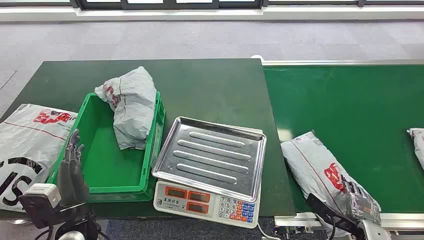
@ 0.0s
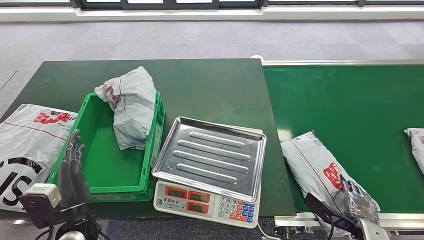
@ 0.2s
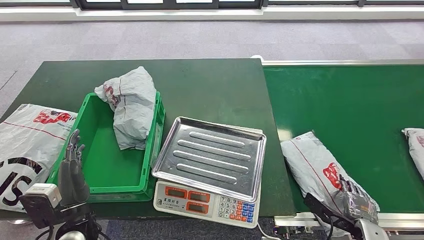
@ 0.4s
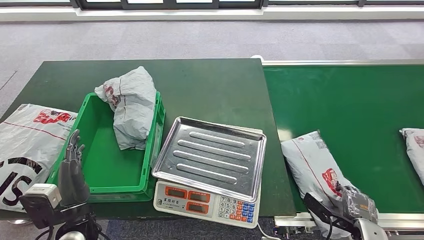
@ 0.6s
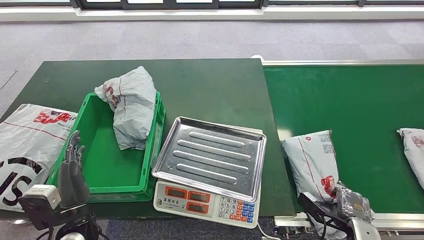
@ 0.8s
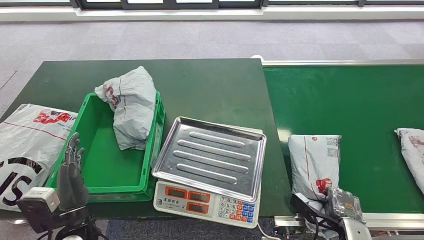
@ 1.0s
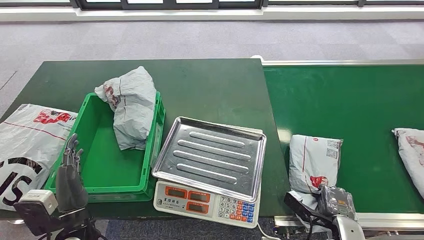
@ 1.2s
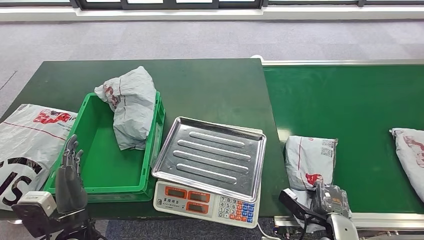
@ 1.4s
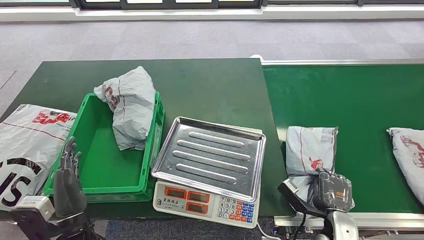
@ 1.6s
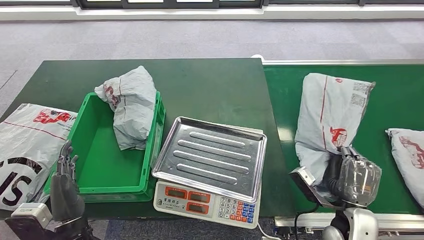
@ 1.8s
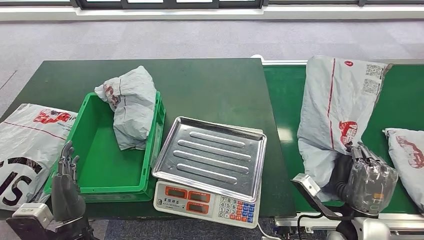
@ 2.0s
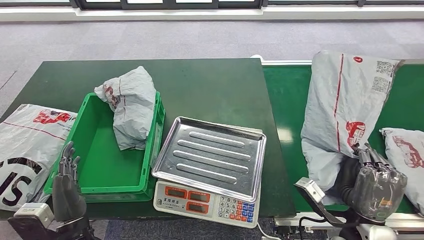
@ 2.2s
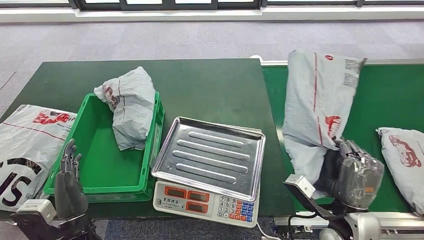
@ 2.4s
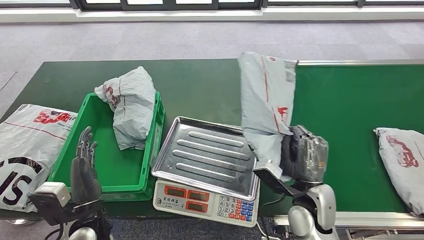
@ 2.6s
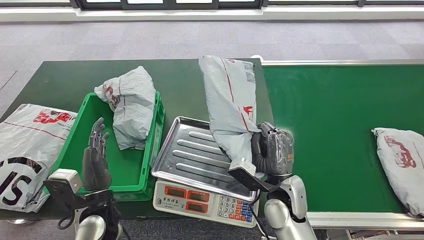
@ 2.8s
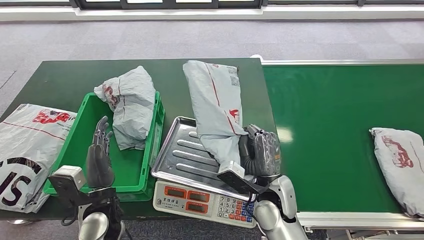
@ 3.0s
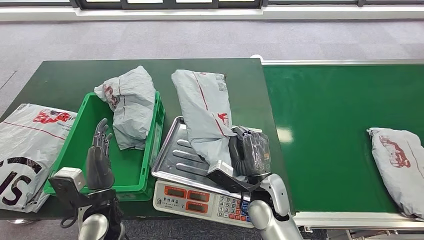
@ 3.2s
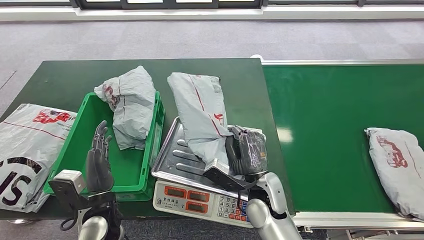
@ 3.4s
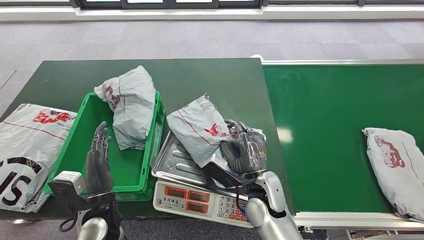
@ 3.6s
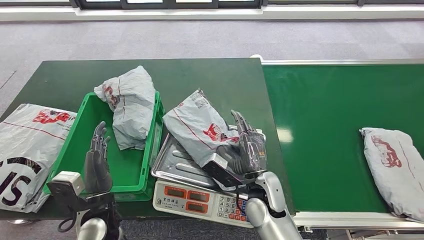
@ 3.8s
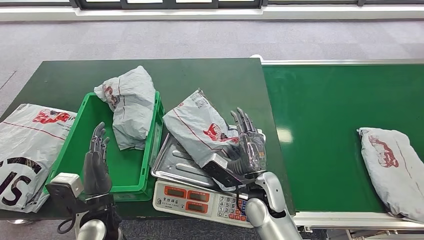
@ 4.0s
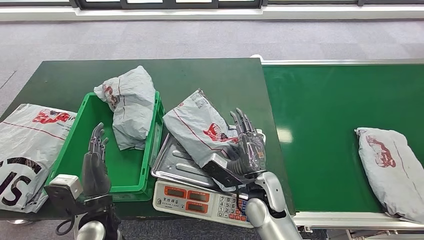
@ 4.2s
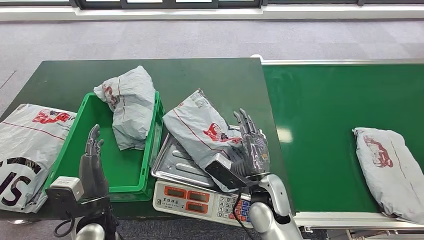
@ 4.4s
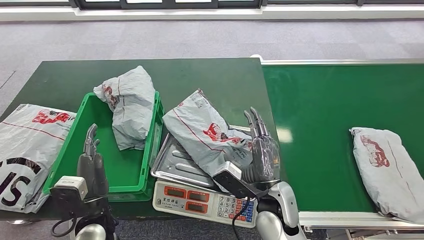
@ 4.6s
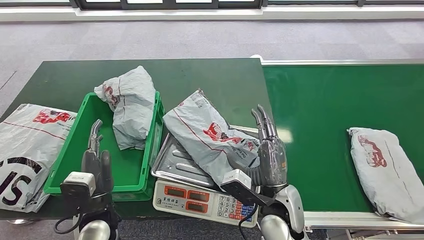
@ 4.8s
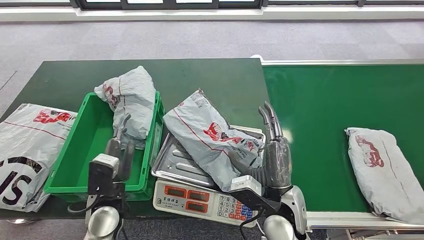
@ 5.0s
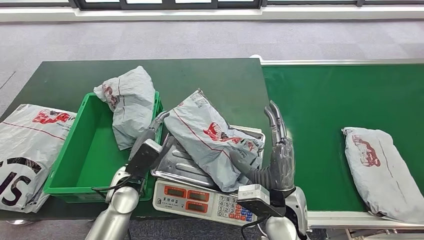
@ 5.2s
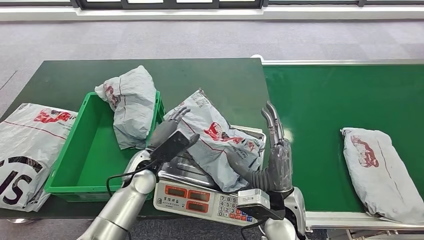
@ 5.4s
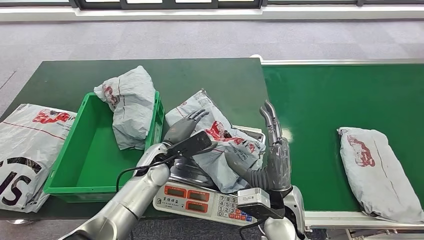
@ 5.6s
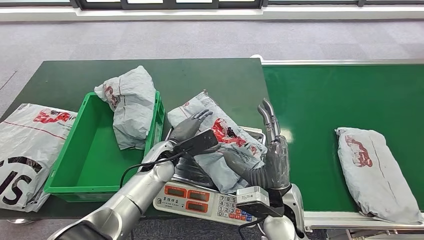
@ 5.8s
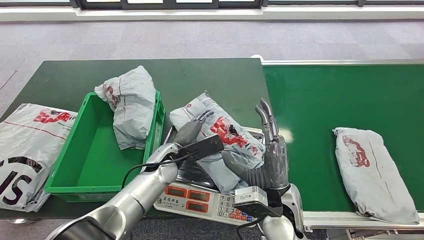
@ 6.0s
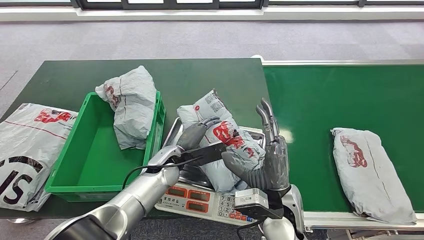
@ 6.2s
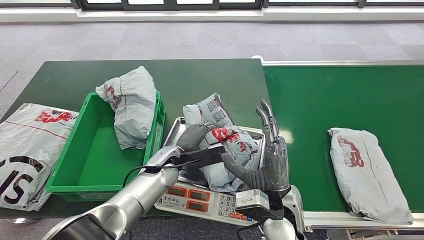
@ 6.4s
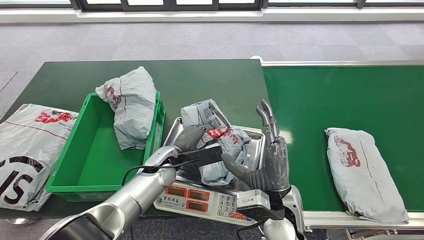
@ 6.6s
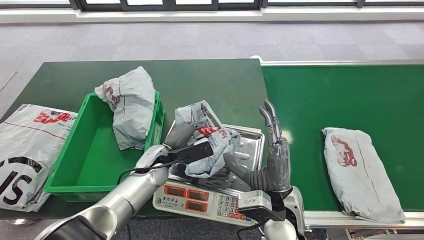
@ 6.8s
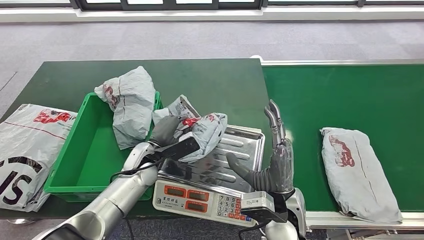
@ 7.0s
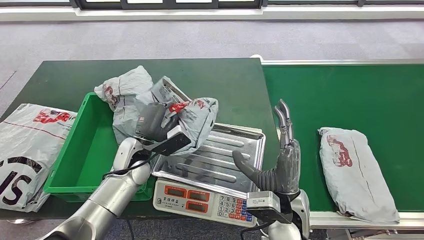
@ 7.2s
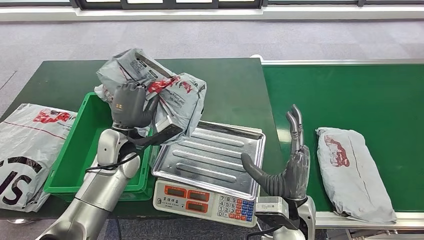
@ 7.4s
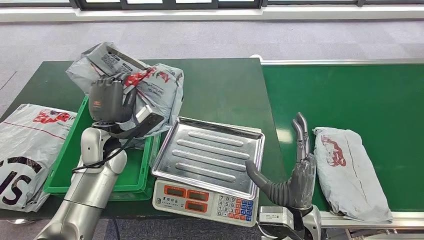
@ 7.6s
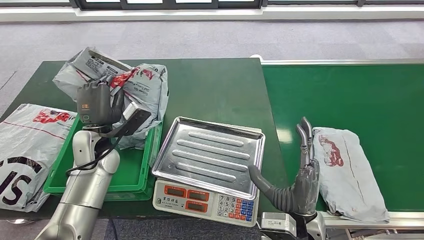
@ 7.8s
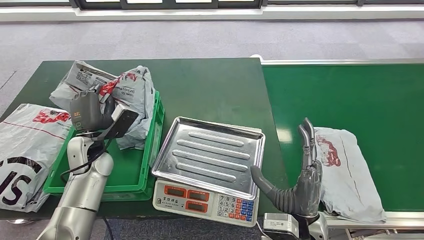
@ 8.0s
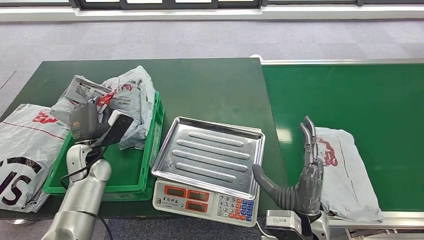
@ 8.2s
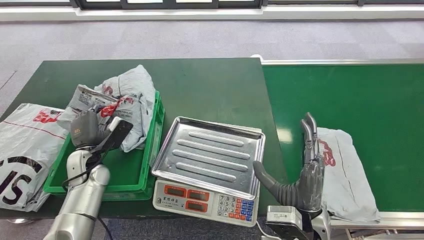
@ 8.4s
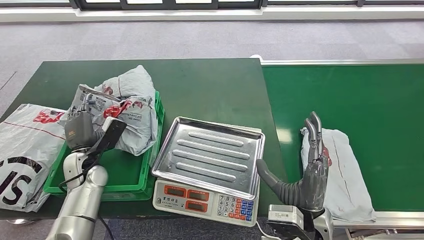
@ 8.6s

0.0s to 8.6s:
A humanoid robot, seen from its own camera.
Step, 0.0s to 2.0s: Pick up the package from the conveyor belt.
Step, 2.2s to 4.8s: Place the package onto the inbound machine.
Step, 5.0s to 7.4s: Pick up the package from the inbound machine.
Step, 7.8s to 8.6s: Place the package into the parcel locker.
